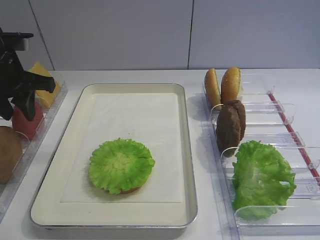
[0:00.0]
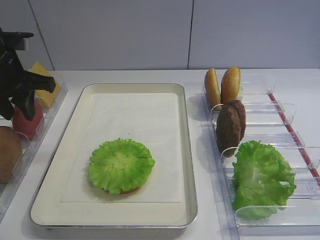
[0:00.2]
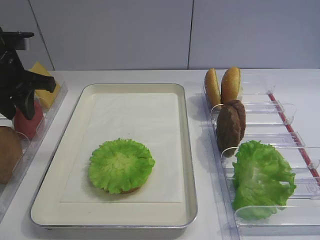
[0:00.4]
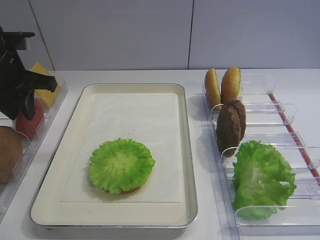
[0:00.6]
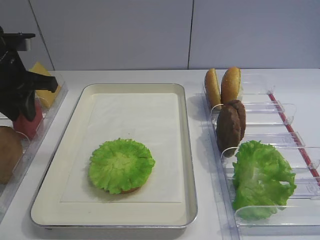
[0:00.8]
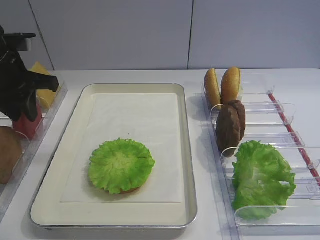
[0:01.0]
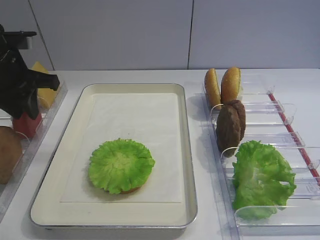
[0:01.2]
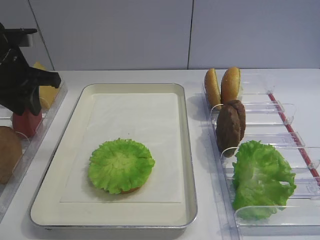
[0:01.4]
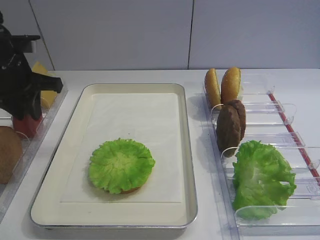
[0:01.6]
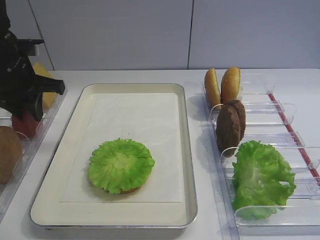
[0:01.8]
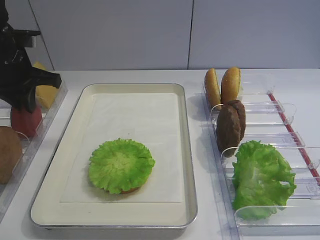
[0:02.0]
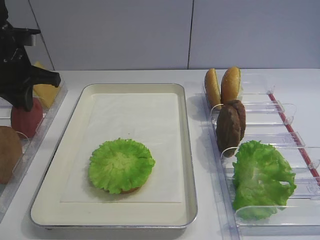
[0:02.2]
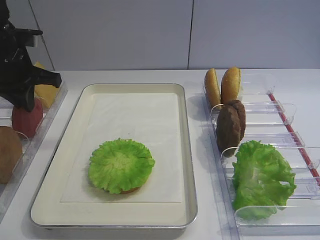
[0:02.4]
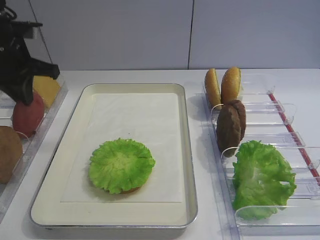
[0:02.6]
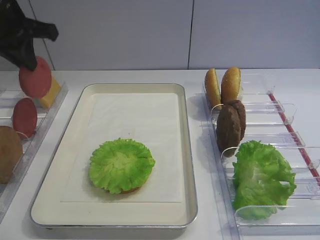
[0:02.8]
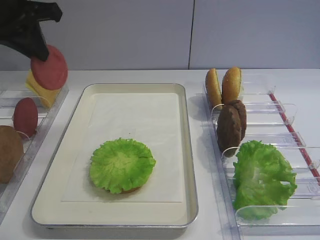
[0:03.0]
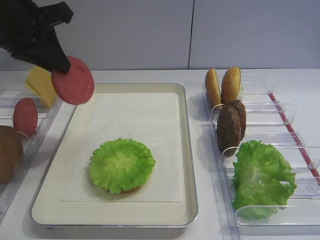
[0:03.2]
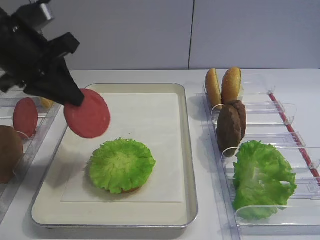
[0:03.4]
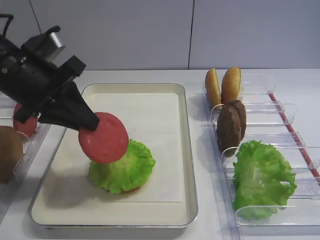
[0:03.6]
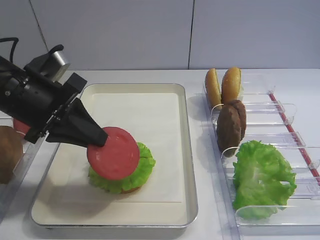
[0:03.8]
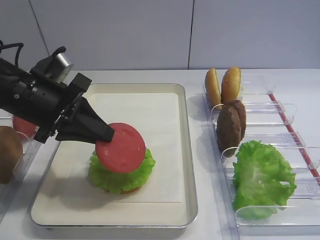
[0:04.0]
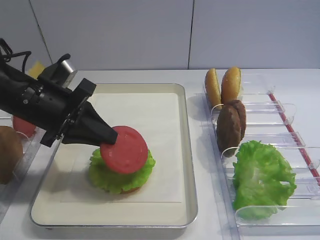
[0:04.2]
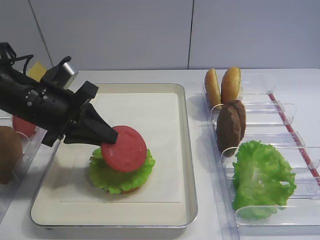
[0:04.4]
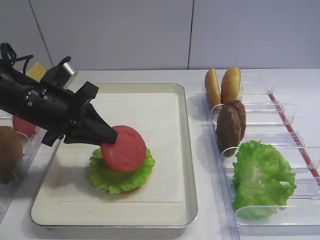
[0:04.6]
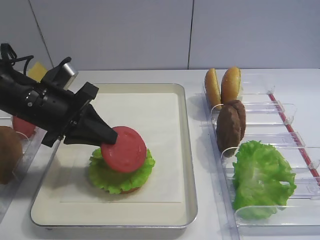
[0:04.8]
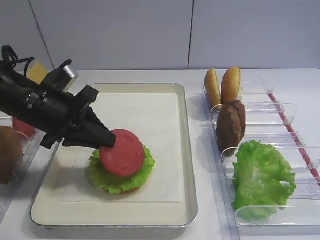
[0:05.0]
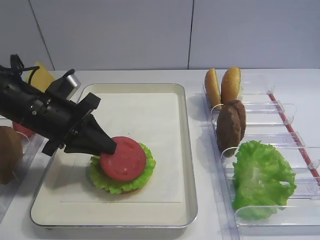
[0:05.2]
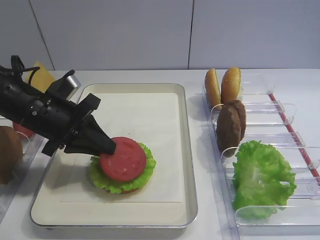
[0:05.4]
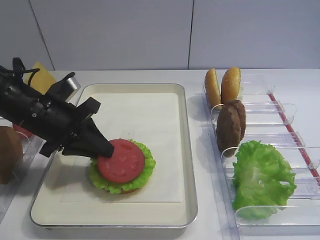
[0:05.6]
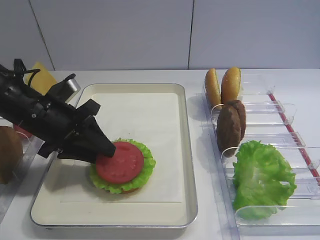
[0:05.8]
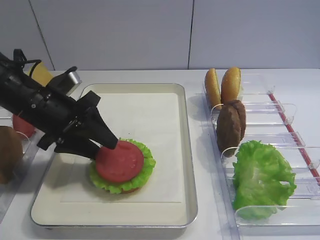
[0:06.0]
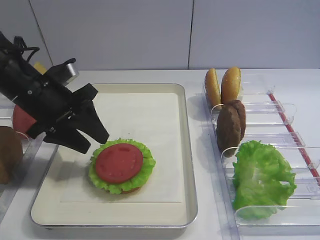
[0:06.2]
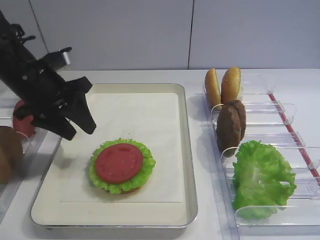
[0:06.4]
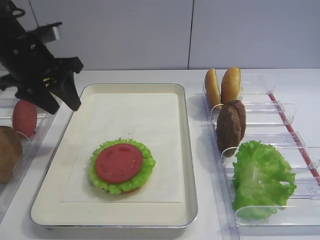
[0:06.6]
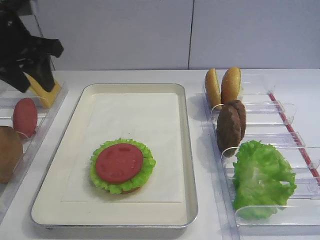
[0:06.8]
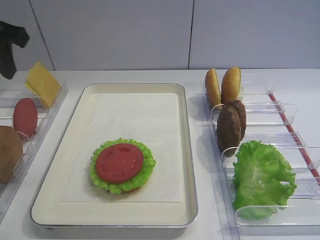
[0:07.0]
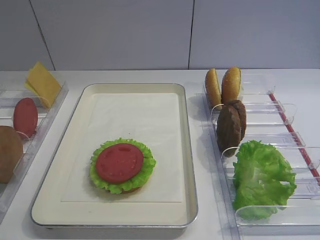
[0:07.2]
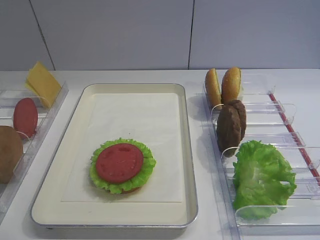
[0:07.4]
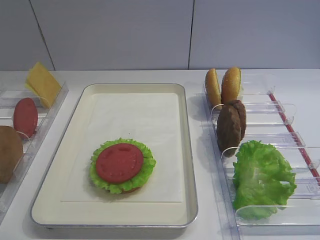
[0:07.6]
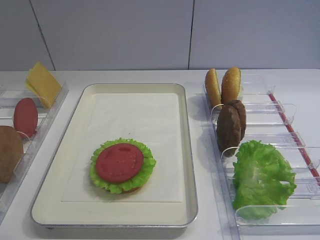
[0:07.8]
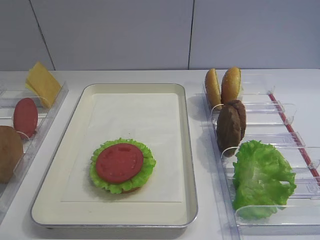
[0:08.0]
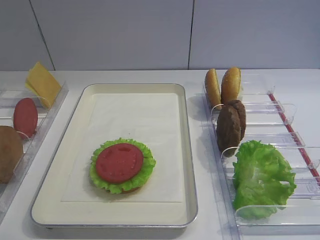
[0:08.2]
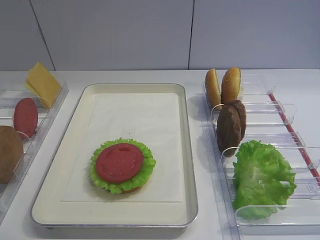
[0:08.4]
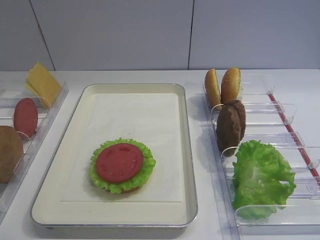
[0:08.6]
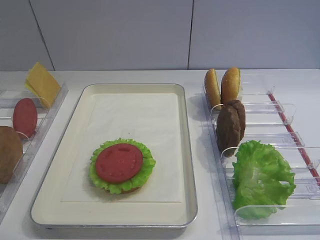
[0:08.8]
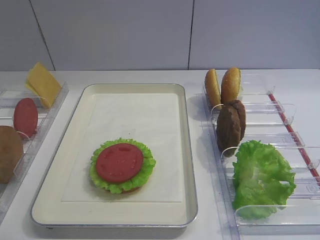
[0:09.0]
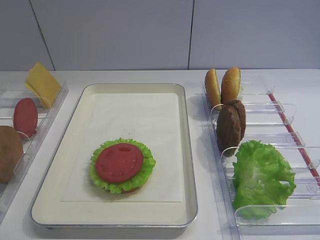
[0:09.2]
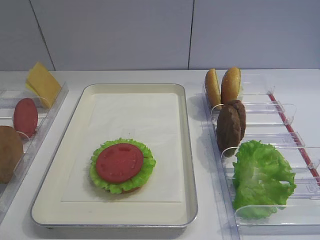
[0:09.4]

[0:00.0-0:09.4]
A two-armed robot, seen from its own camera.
Step, 0:00.0 to 0:02.6: Pick up the tomato slice with the left gripper.
Step, 0:02.8 to 0:06.2: Place the tomato slice on the lettuce leaf with the left gripper.
0:00.0 to 0:01.6: There are only small adjustments of the grippers.
0:01.6 to 0:03.2: The left gripper travels upward by some 10 cm, and closes.
0:03.2 to 0:04.8: The left gripper heads downward, covering approximately 15 cm.
0:04.8 to 0:06.2: The left gripper opens its fingers.
0:06.2 to 0:07.8: The left gripper goes some 30 cm backward, upward and to the left.

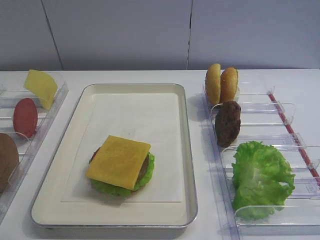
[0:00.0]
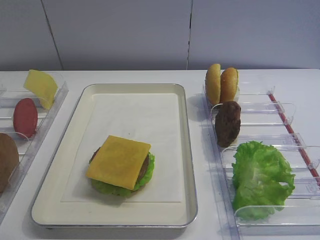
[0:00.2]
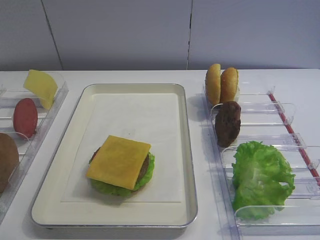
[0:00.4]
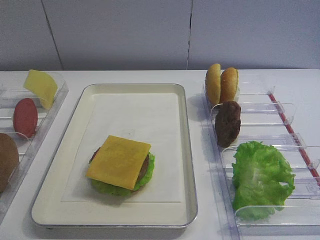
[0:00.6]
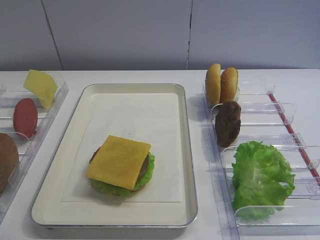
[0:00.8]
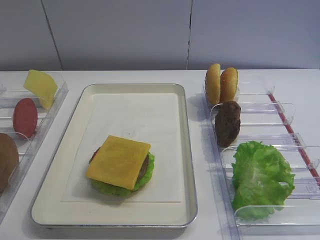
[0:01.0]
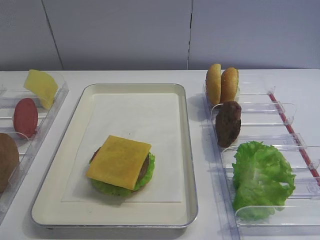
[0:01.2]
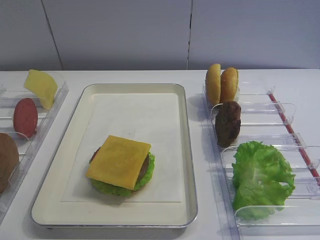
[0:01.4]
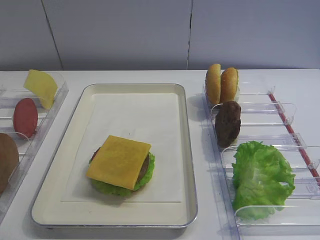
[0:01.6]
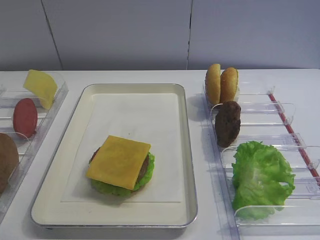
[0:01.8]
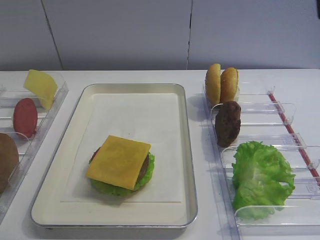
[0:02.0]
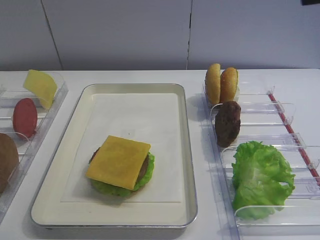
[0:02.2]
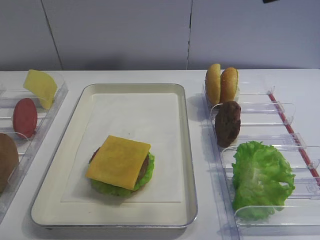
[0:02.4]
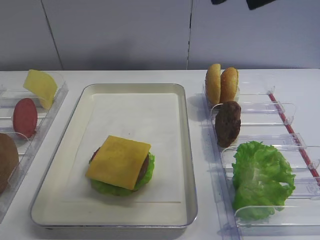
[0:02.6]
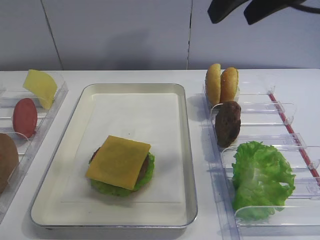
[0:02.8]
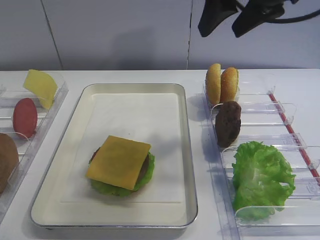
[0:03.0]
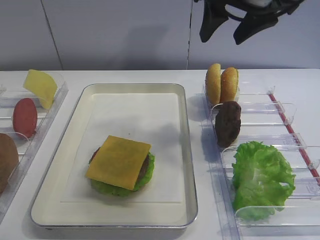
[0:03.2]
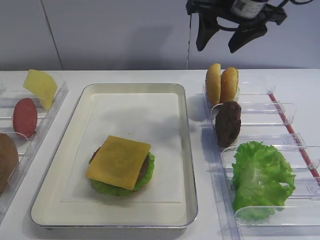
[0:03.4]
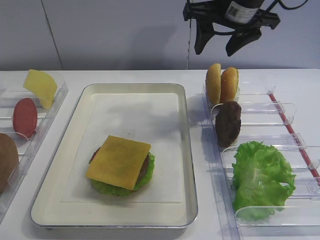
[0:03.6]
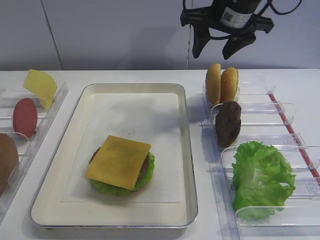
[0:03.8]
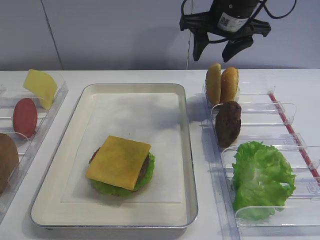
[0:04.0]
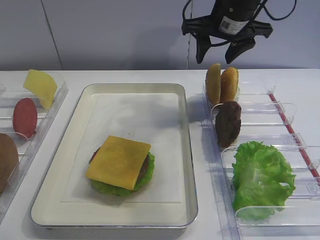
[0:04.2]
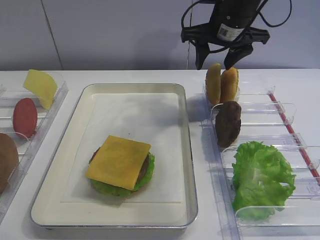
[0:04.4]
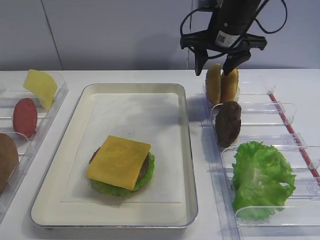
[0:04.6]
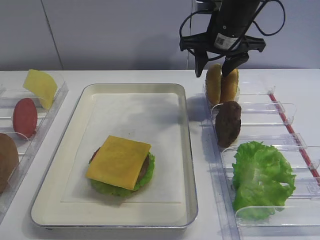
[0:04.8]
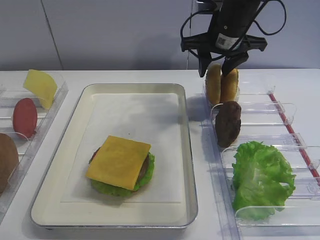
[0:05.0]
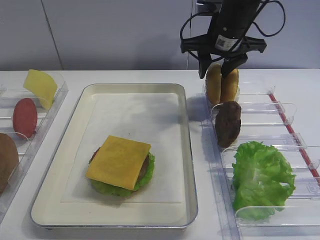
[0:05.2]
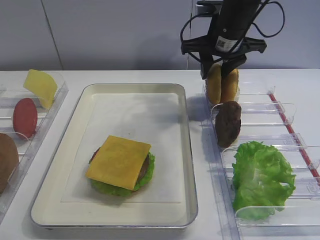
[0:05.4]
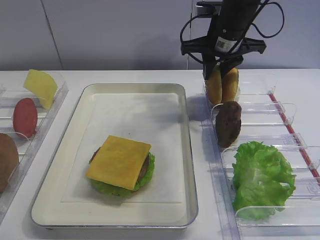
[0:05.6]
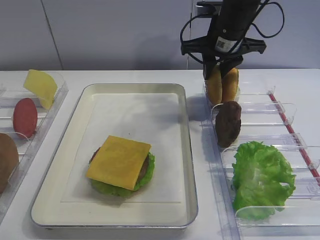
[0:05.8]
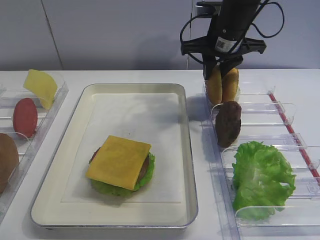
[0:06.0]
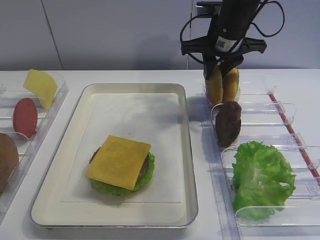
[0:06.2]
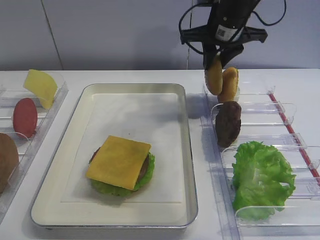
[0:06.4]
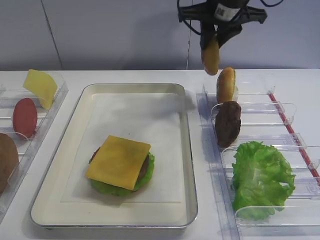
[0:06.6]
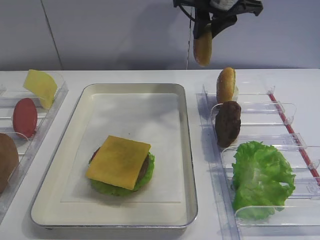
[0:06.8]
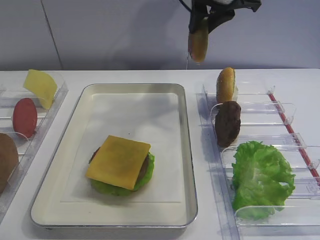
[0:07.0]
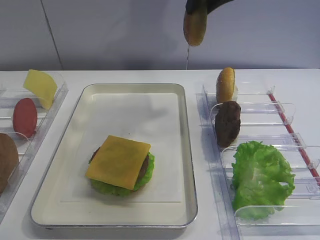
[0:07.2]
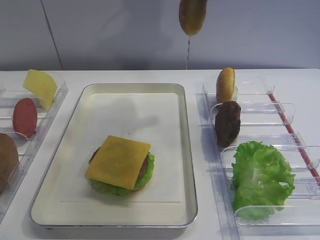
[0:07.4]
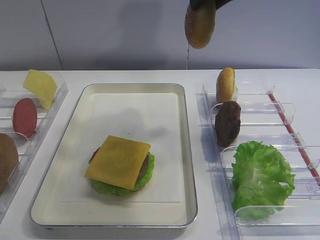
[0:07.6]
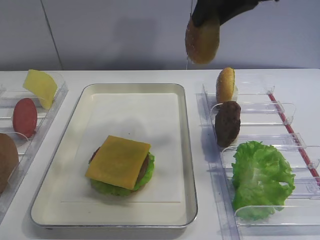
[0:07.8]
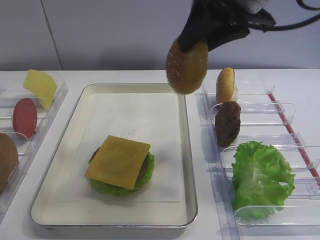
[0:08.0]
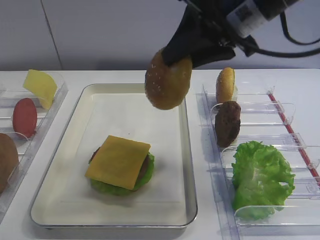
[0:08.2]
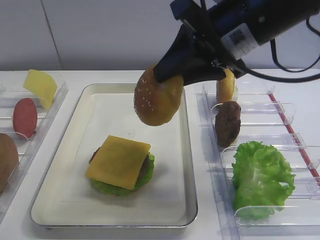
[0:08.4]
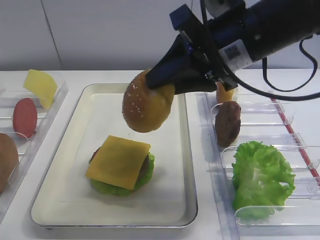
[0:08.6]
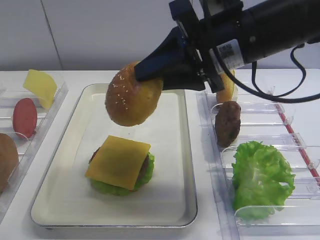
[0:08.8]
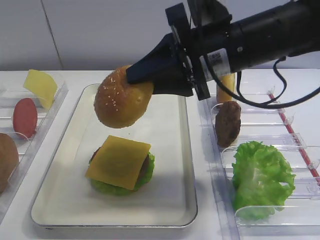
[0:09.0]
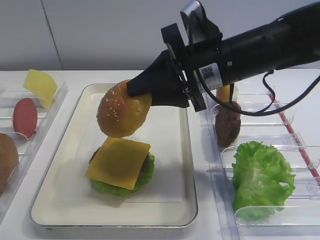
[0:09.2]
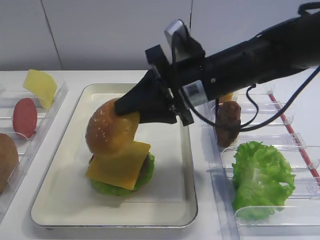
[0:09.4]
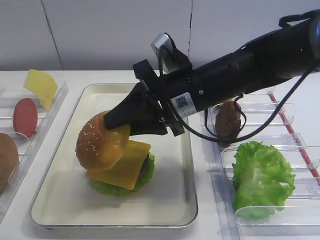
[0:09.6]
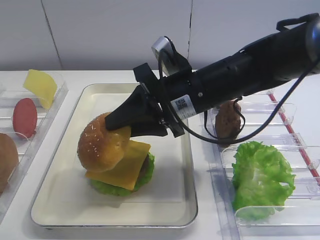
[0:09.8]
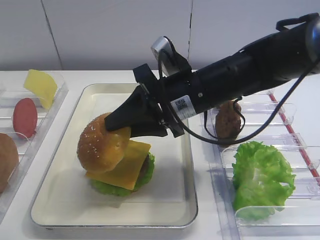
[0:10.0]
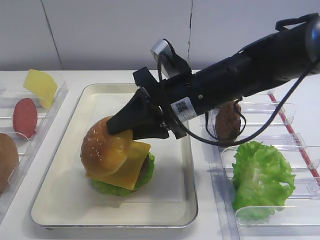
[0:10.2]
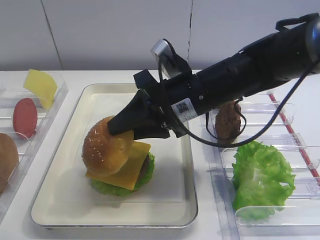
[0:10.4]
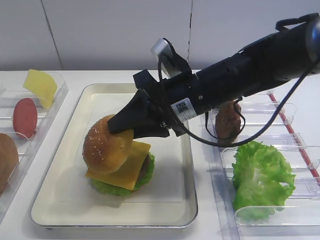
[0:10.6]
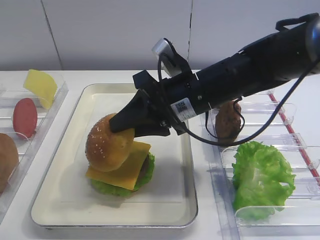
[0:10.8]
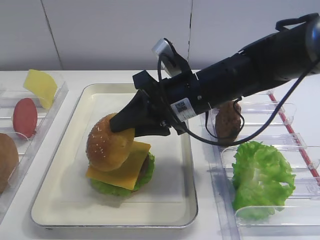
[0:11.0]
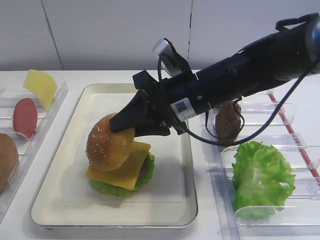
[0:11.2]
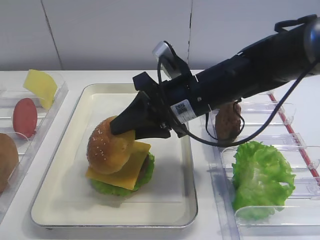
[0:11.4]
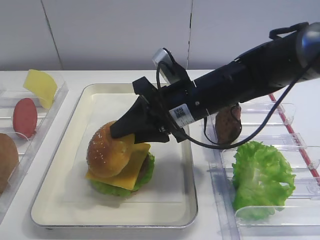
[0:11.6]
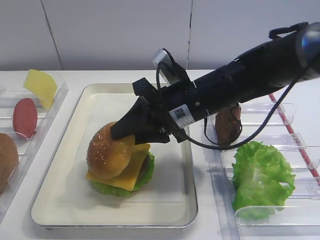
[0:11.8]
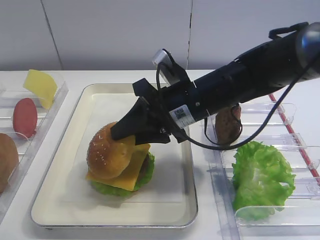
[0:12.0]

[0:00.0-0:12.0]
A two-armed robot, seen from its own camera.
Step, 0:00.0 to 0:07.0: Pick up the hamburger lid with the right gripper.
0:01.6 to 0:03.0: The right gripper moves forward, roughly 30 cm.
0:03.0 to 0:04.4: The right gripper goes about 15 cm forward and downward.
0:04.4 to 0:06.0: The right gripper closes its fingers.
0:06.0 to 0:07.6: The right gripper is displaced upward and backward by approximately 15 cm.
0:07.6 to 0:09.0: The right gripper travels downward and backward by some 15 cm.
0:09.0 to 0:10.4: The right gripper heads downward, covering about 5 cm.
0:10.4 to 0:12.0: There are only small adjustments of the grippers.

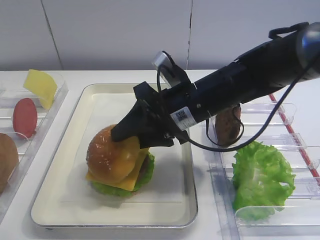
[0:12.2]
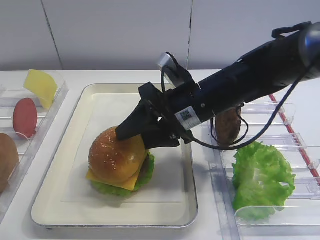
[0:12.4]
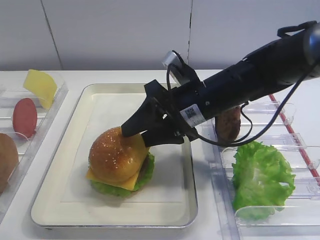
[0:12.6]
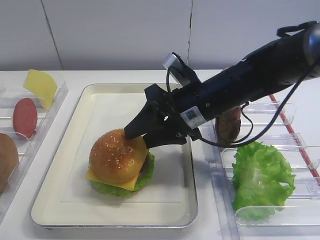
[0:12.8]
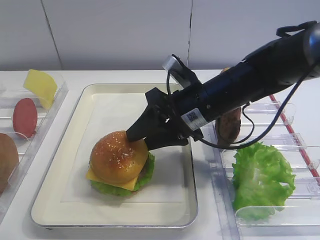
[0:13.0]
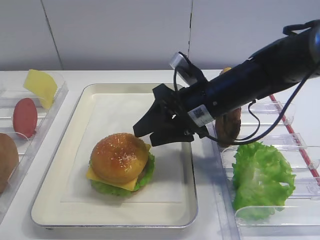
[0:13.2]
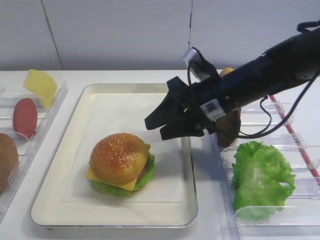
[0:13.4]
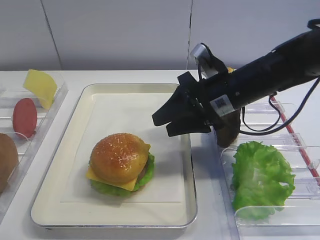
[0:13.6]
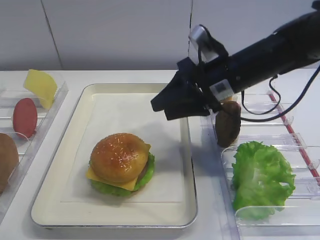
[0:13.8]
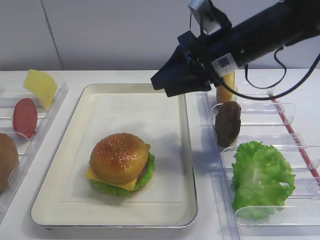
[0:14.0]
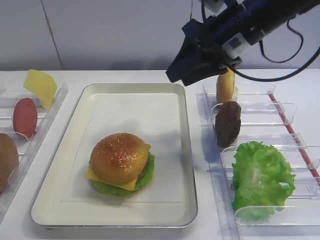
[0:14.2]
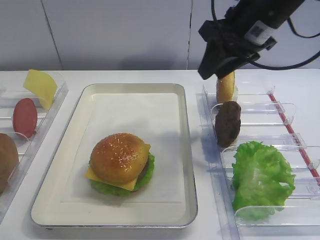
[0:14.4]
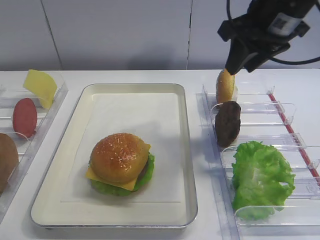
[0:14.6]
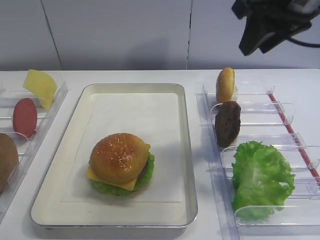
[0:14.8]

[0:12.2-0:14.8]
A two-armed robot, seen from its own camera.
0:12.2 to 0:13.4: The right gripper shifts by about 5 cm.
0:13.4 to 0:14.8: The right gripper heads upward and to the right, covering approximately 20 cm.
